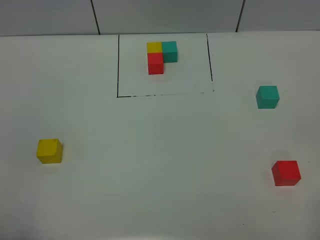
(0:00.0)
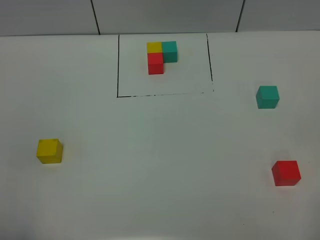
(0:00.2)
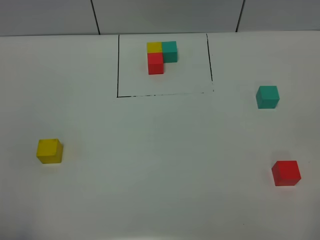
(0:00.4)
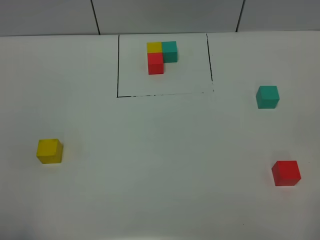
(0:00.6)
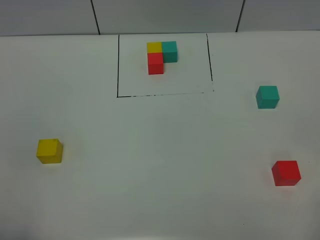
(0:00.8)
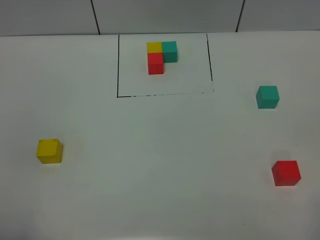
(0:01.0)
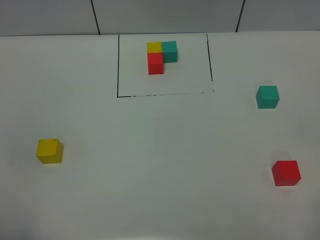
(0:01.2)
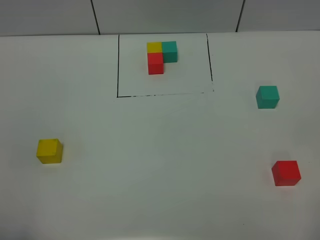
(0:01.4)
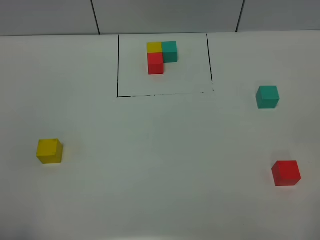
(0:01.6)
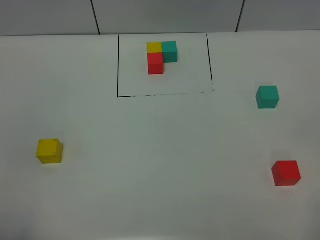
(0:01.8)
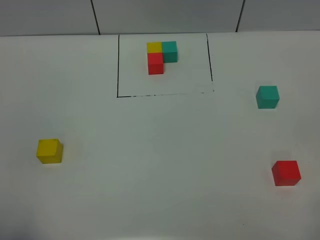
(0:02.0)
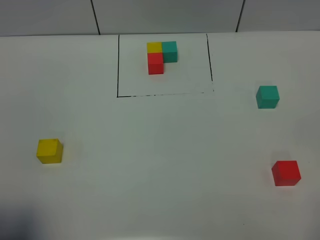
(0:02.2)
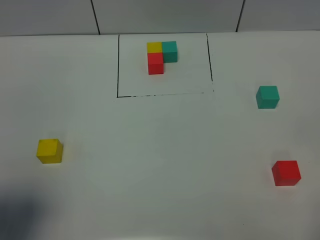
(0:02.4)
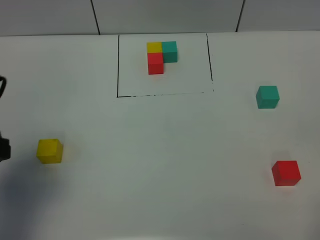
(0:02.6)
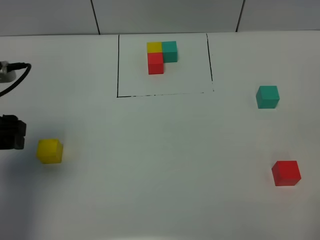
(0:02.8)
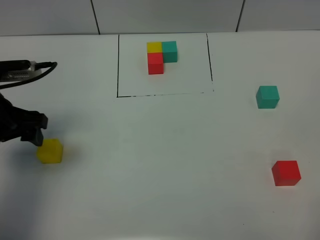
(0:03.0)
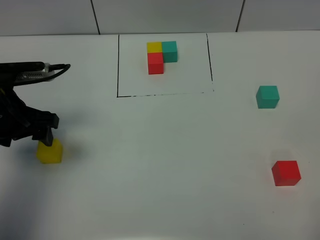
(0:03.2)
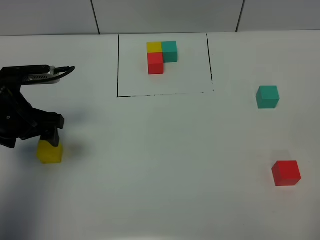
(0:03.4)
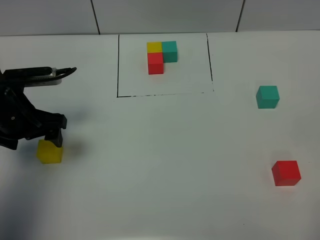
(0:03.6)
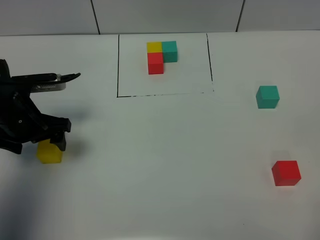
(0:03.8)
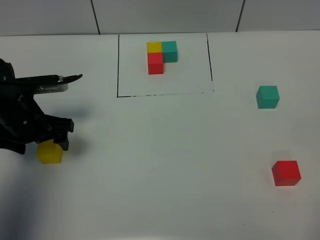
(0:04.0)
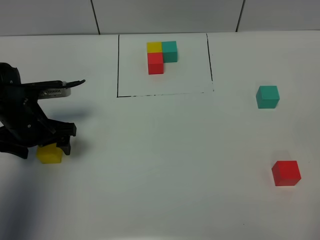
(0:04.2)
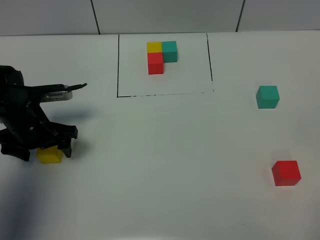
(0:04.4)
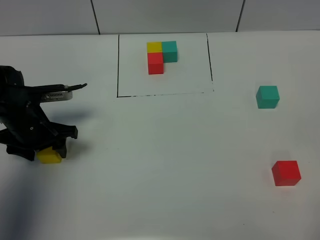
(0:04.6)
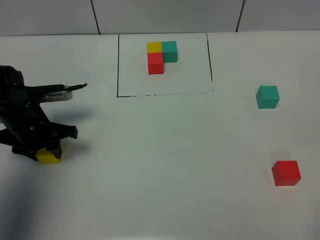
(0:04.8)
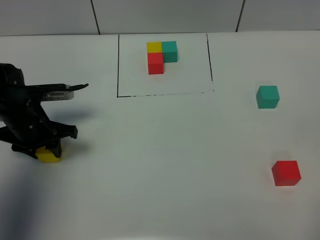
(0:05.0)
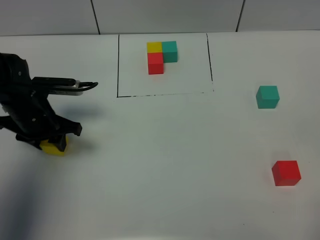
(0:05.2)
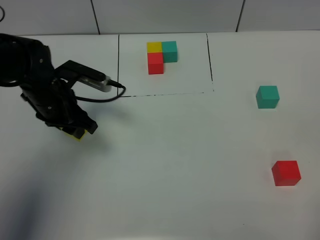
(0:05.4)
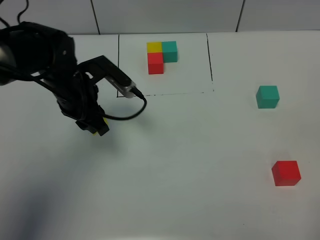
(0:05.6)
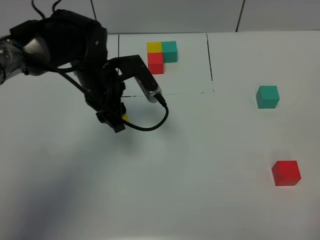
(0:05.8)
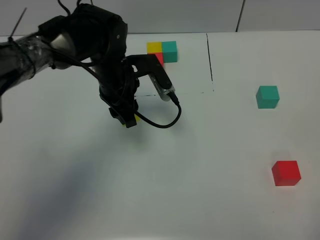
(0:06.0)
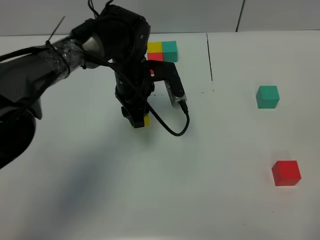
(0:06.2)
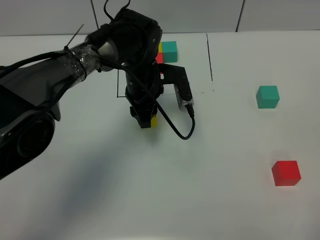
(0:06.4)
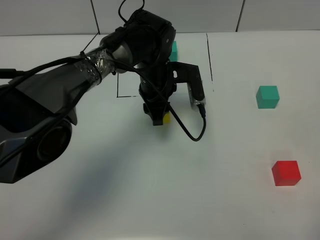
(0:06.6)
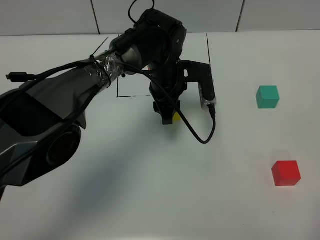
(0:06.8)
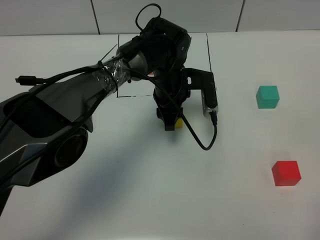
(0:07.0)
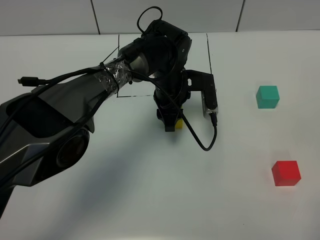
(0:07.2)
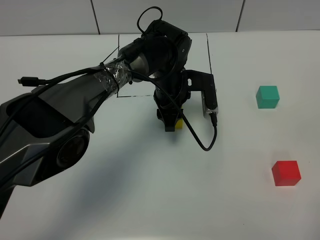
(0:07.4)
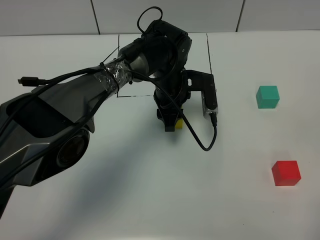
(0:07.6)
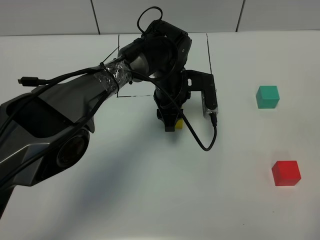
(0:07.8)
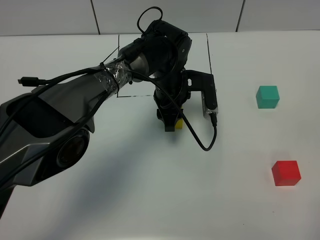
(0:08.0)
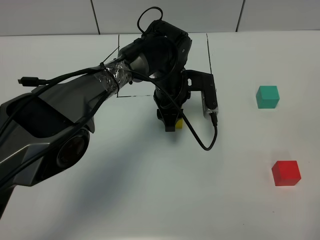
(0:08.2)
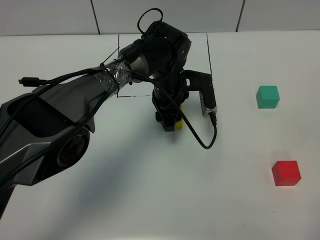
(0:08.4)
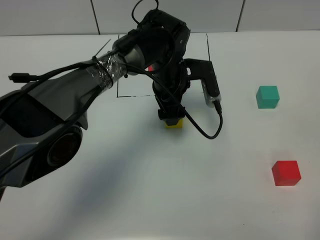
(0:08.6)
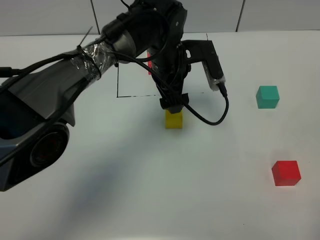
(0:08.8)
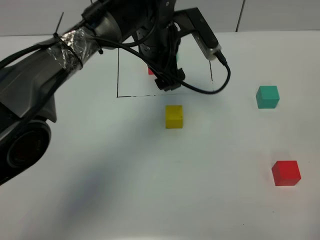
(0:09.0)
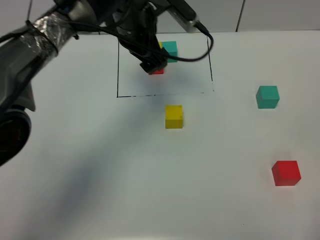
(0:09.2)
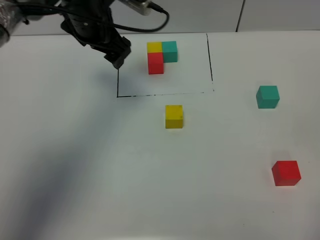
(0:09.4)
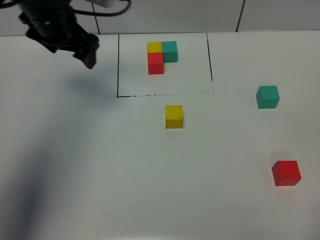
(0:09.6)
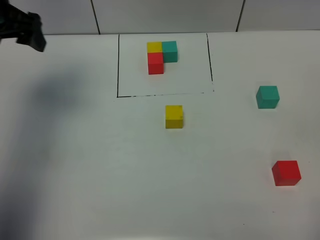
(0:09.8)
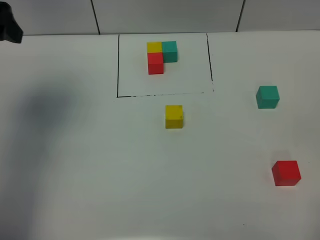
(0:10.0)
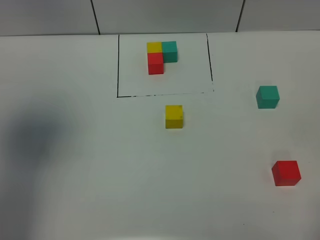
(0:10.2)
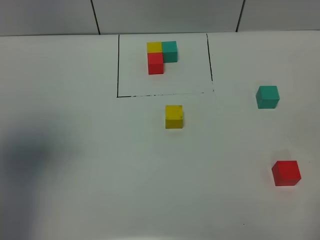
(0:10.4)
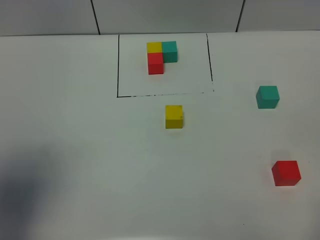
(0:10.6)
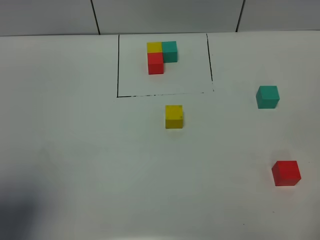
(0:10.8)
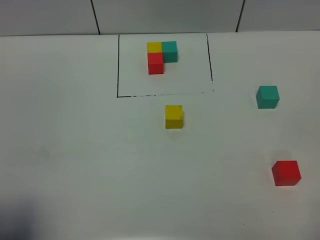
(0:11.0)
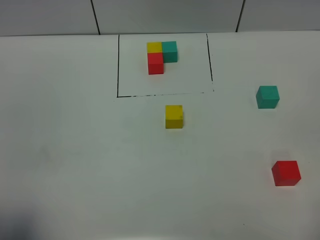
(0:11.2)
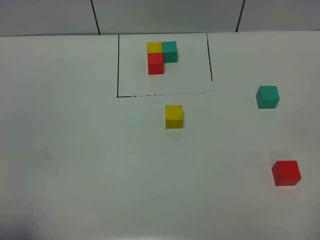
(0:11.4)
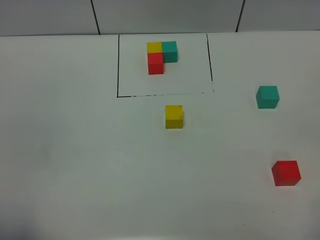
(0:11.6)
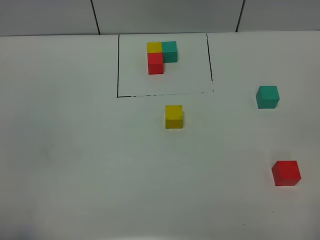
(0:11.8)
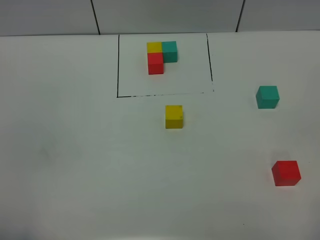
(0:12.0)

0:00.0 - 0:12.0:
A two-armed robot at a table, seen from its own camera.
Task of the whole recording: According to the building block template in front, assemble the scattered blocks together.
Step, 0:00.0 - 0:08.4: Put the yellow build block in the center of the table.
0:00.0 - 0:01.6: Both grippers stay put.
0:01.6 - 0:03.0: The left gripper heads forward, covering some 30 cm.
0:03.0 - 0:04.4: The left gripper heads downward, covering some 10 cm.
0:04.4 - 0:06.0: The left gripper shifts about 15 cm to the right, and closes.
0:06.0 - 0:07.6: The left gripper is displaced to the right and downward by roughly 10 cm.
0:07.6 - 0:09.0: The left gripper moves upward, some 15 cm, and opens up.
0:09.0 - 0:10.4: The left gripper heads to the left, backward and upward, covering about 40 cm.
0:10.4 - 0:12.0: The left gripper goes some 25 cm backward and downward.

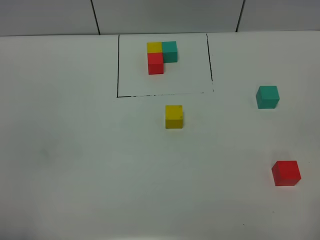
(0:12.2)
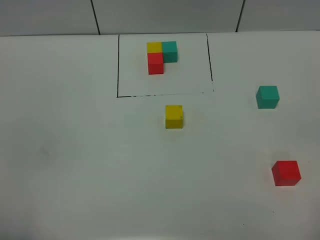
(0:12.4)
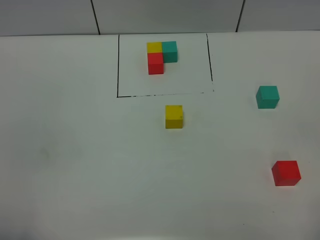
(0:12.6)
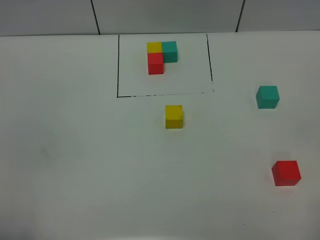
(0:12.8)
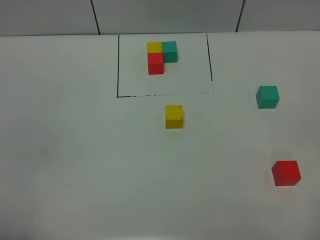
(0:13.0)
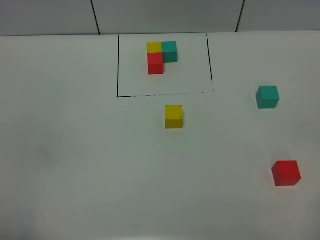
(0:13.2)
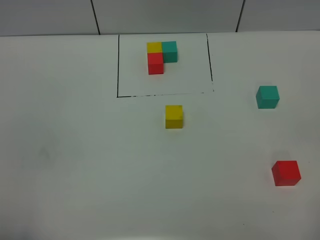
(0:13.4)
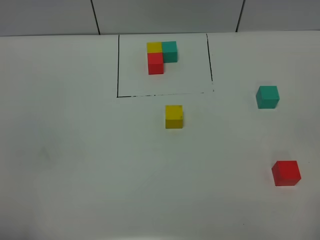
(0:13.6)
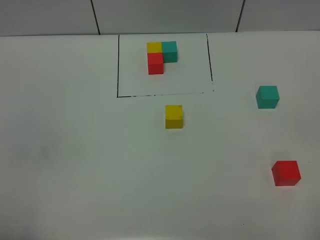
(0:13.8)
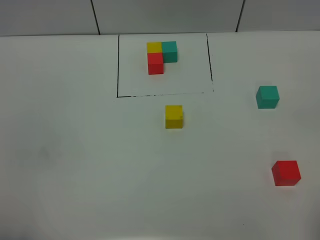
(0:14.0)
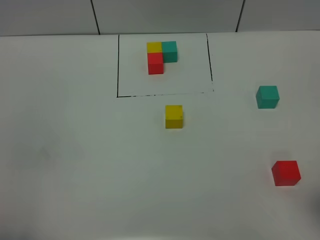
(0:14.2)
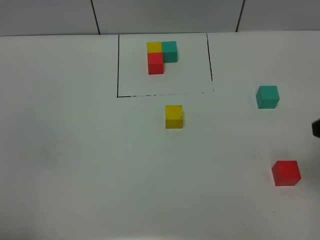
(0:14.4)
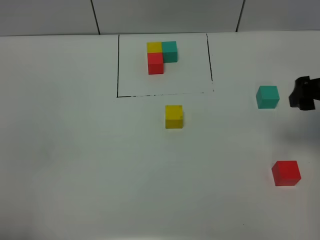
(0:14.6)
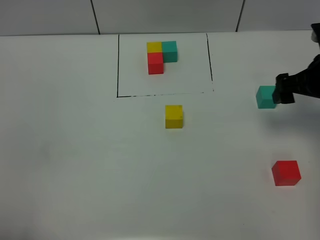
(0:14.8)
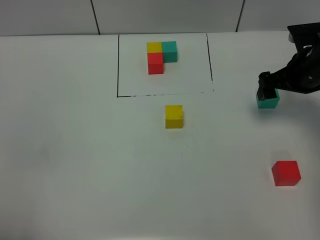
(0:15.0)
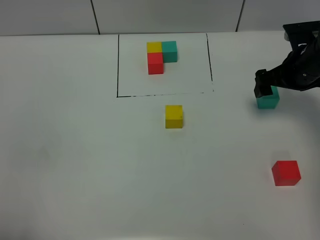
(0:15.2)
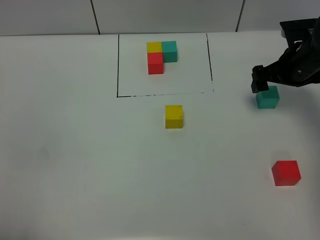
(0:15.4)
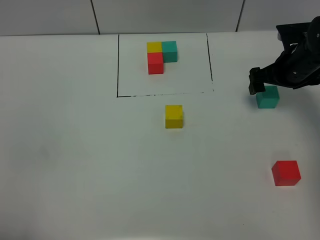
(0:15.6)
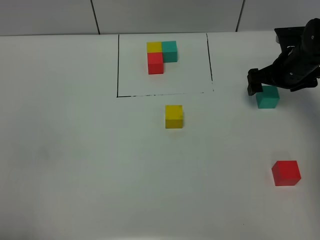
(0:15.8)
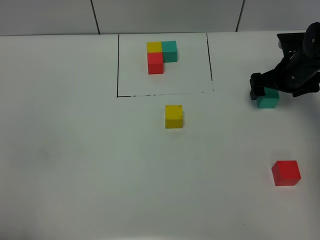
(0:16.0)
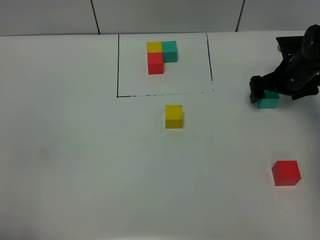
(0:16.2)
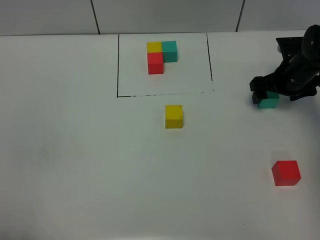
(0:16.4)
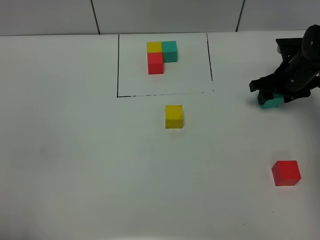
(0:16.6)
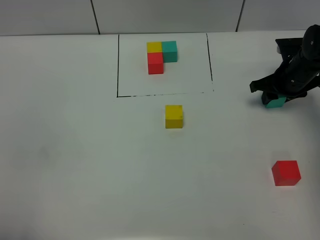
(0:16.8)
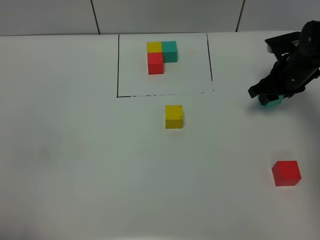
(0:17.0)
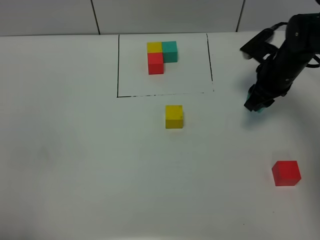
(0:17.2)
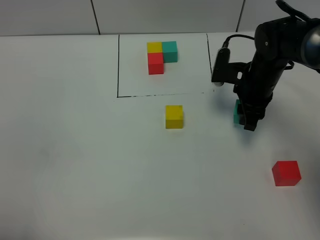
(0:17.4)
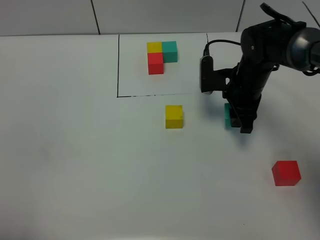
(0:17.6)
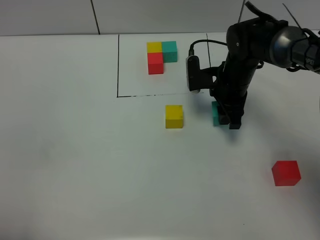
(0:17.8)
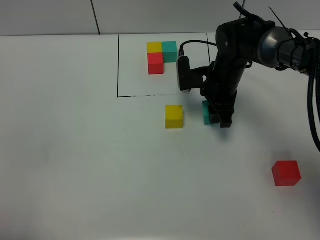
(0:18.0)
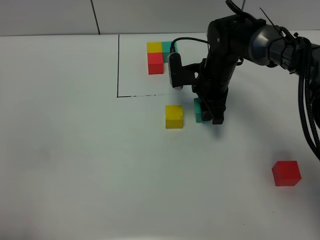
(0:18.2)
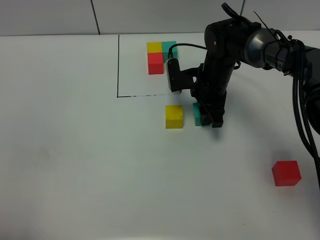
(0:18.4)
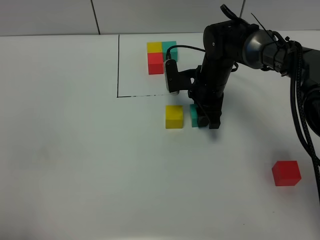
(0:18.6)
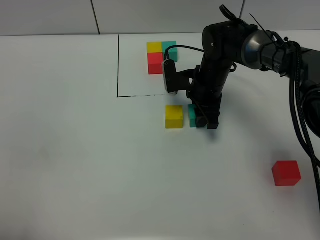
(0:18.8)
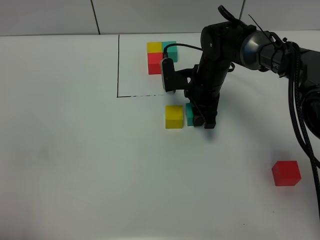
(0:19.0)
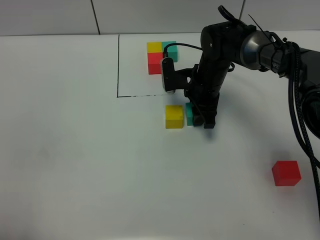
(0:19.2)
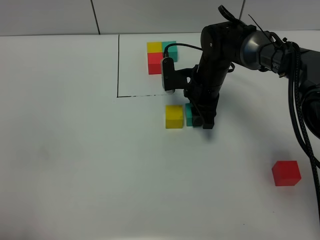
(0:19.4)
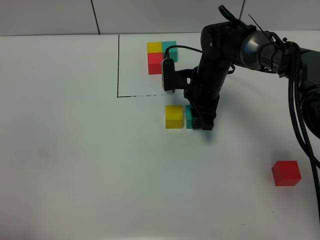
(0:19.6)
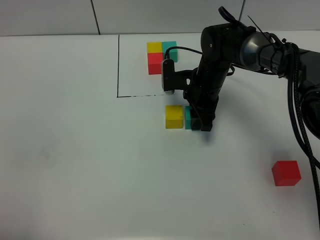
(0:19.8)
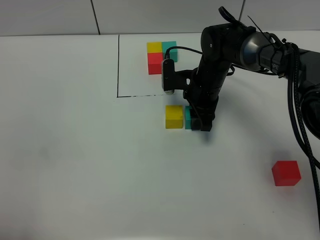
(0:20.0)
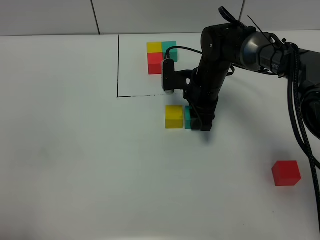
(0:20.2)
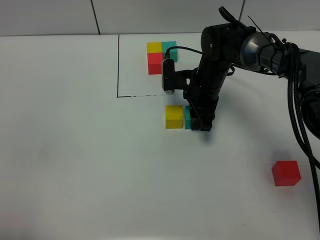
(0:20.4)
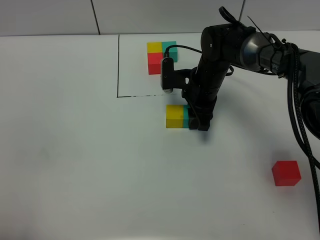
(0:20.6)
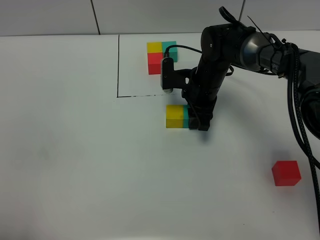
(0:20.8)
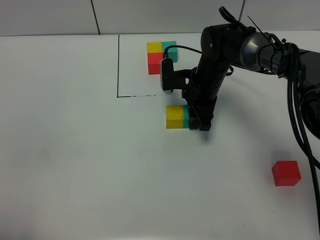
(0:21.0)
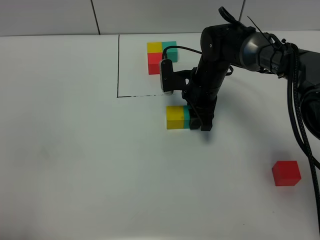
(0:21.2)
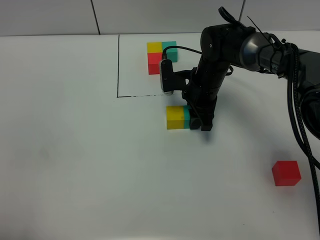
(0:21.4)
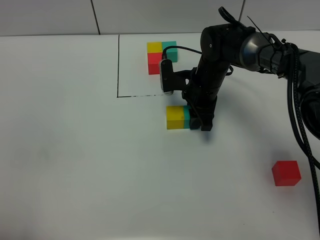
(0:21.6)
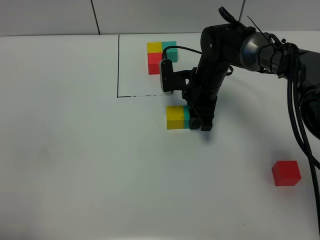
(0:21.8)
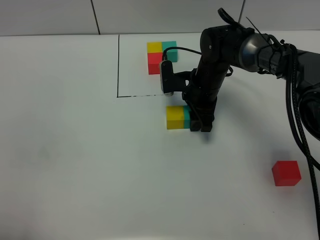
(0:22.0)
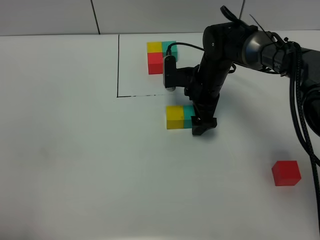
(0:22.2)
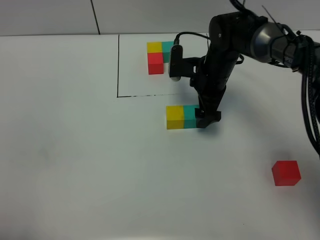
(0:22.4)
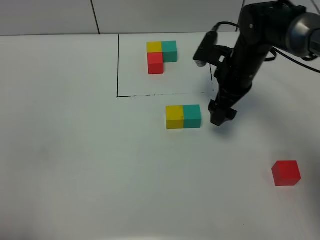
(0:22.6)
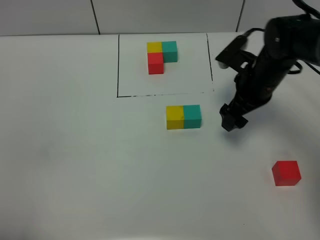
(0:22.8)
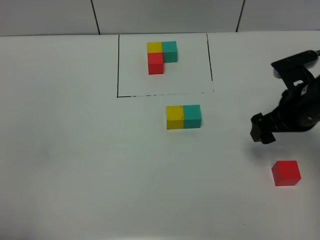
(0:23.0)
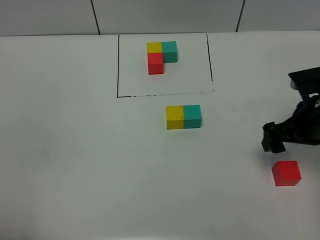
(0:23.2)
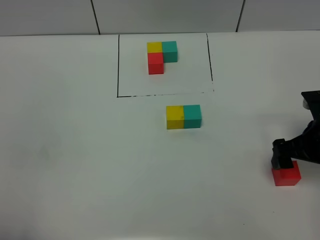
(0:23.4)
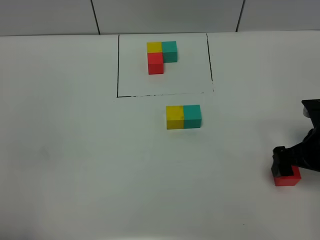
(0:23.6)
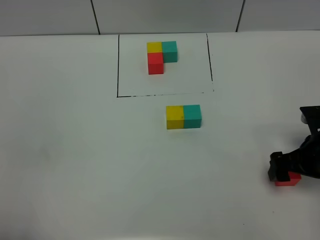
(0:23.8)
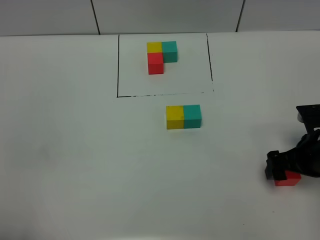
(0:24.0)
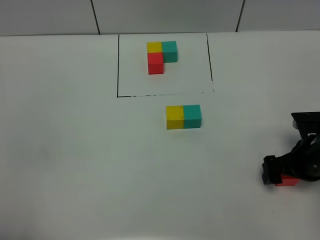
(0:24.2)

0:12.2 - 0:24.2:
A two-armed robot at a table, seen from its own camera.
Task of the whole recording: According to the building block template in front, assemble the scattered blocks together.
Step, 0:12.2 - 0:22.2: Put the green build block on the right of the yellow build block.
0:12.2 - 0:13.8: Both grippers stay about where they are.
0:13.8 - 0:15.2: The right gripper goes some 40 cm forward.
0:15.2 - 0:16.6: The right gripper moves downward, about 5 cm, and closes up.
0:16.6 - 0:18.2: The right gripper is displaced to the left by roughly 15 cm.
0:18.2 - 0:19.8: The grippers stay close to where they were, moving slightly.
0:19.8 - 0:21.2: Neither gripper changes place.
0:21.2 - 0:22.6: The right gripper heads to the right and upward, covering approximately 10 cm, and opens up.
0:22.6 - 0:24.2: The right gripper shifts approximately 20 cm backward, to the right and downward.
